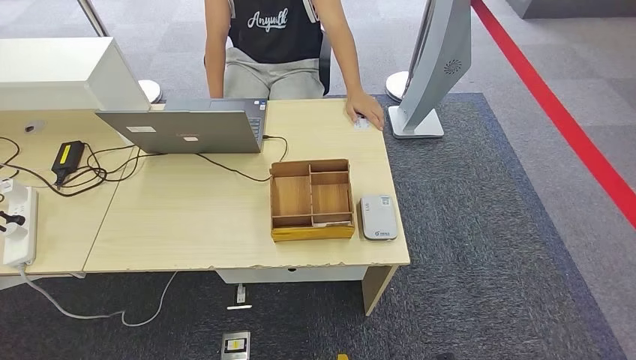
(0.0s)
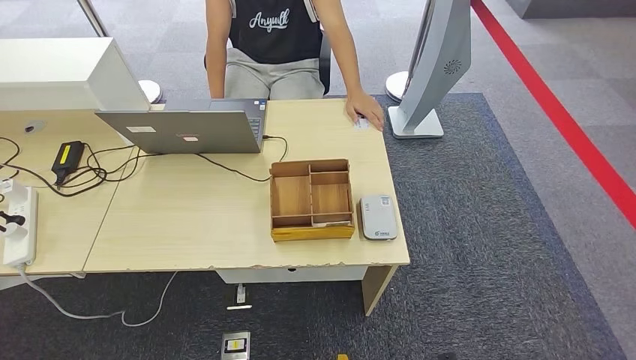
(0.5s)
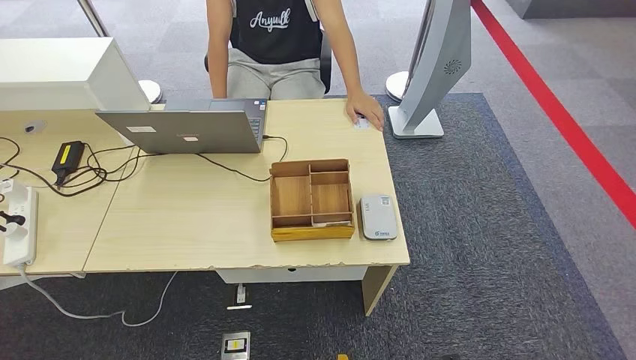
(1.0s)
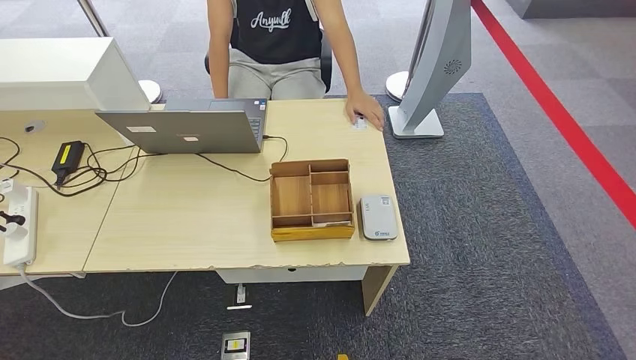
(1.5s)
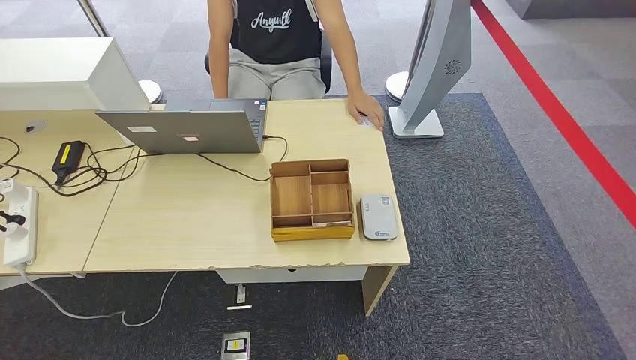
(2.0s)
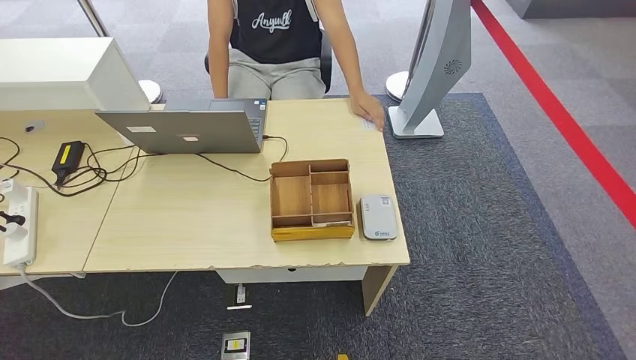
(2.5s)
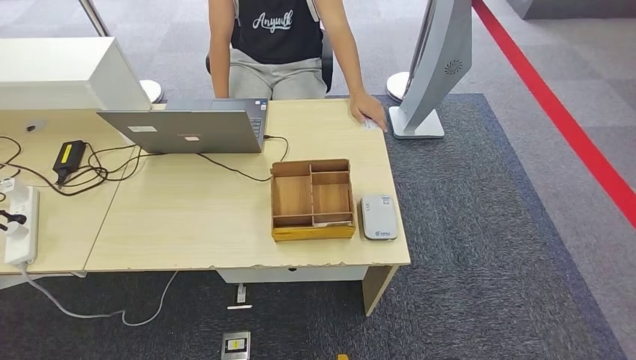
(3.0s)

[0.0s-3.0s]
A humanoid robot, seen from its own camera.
Step, 0.0s to 3.0s: Hand the room key to the person.
1.5s to 3.0s: The left hand is displaced to the left by some 5 cm.
